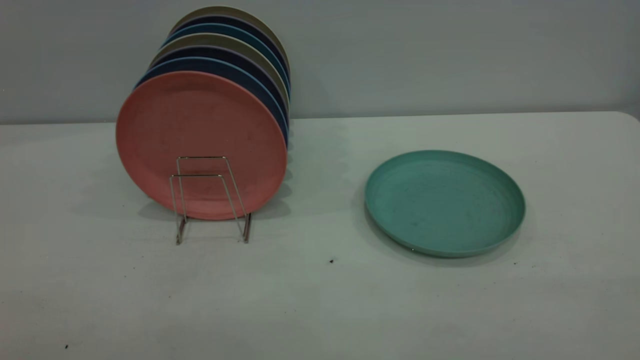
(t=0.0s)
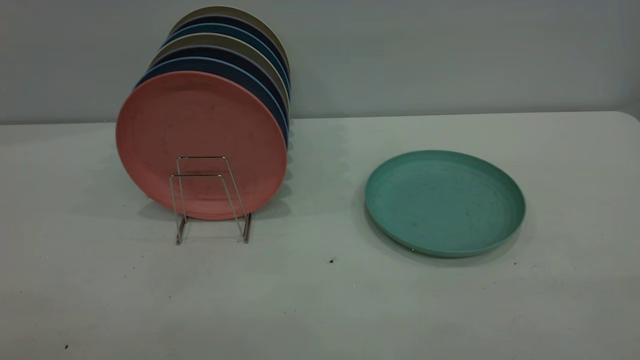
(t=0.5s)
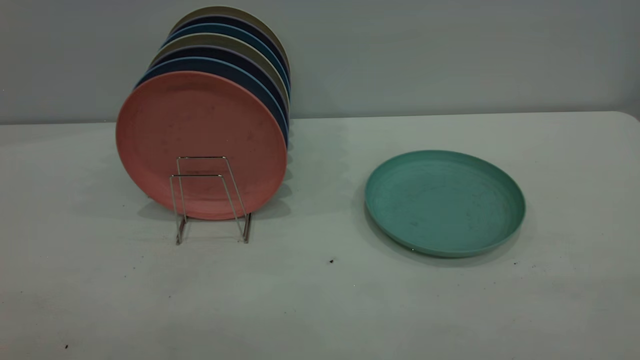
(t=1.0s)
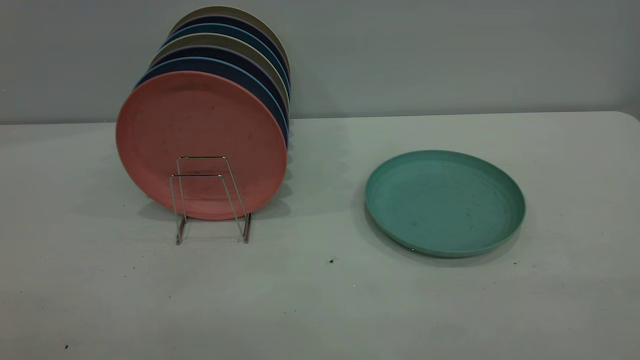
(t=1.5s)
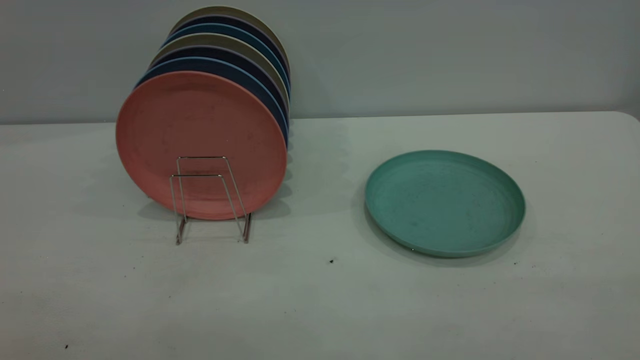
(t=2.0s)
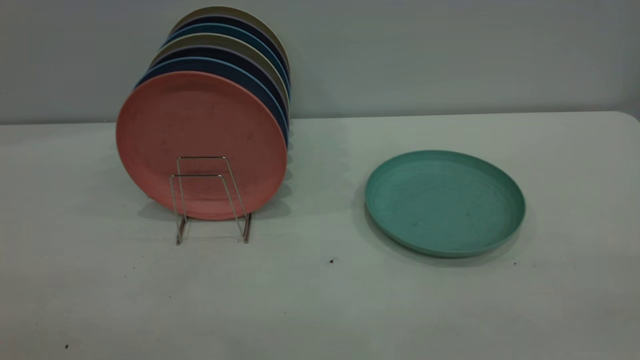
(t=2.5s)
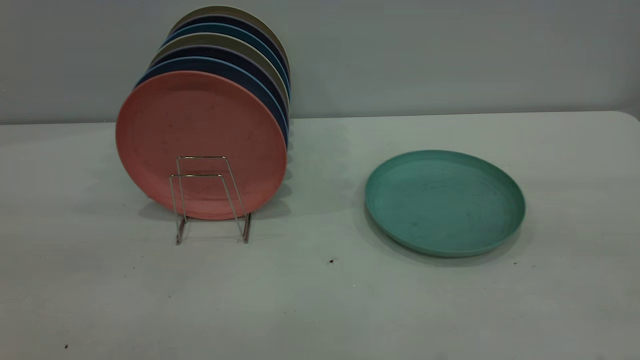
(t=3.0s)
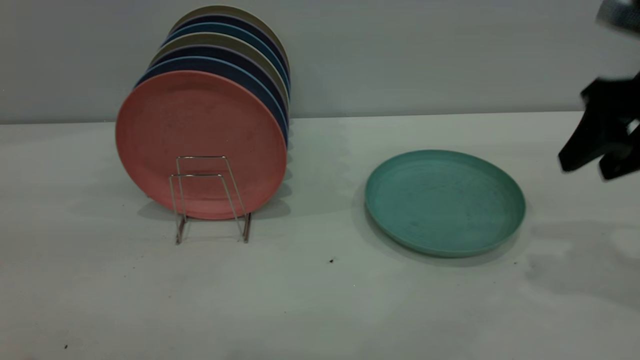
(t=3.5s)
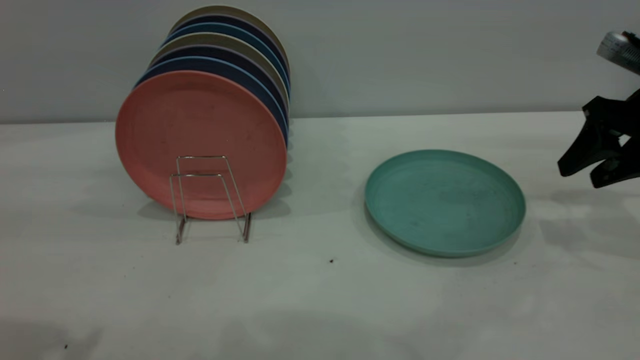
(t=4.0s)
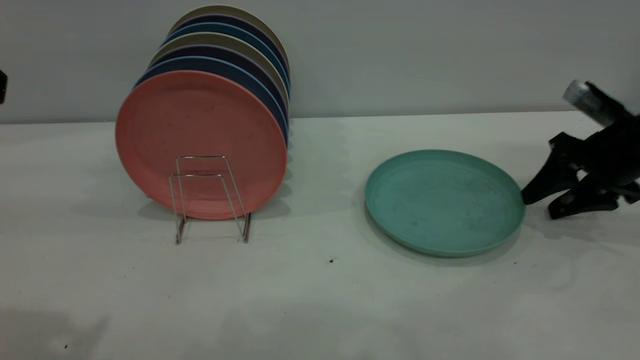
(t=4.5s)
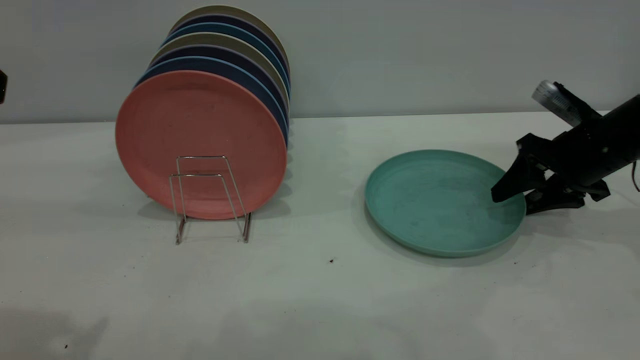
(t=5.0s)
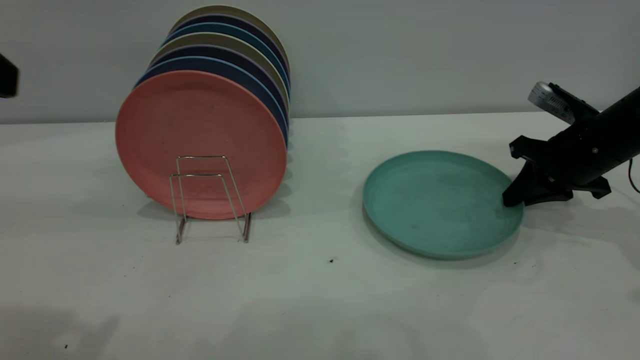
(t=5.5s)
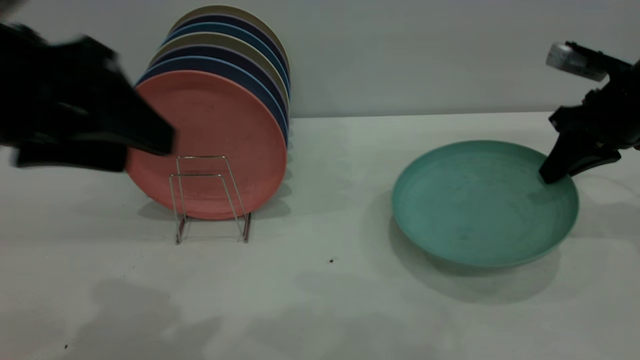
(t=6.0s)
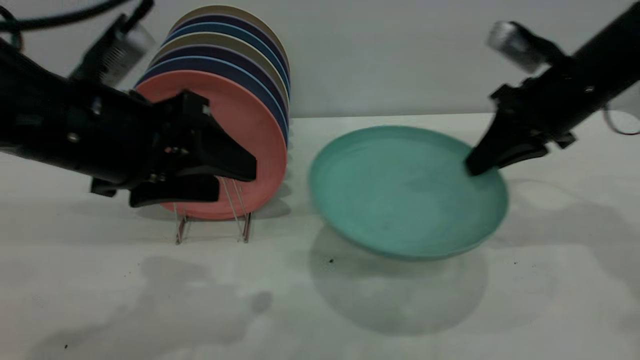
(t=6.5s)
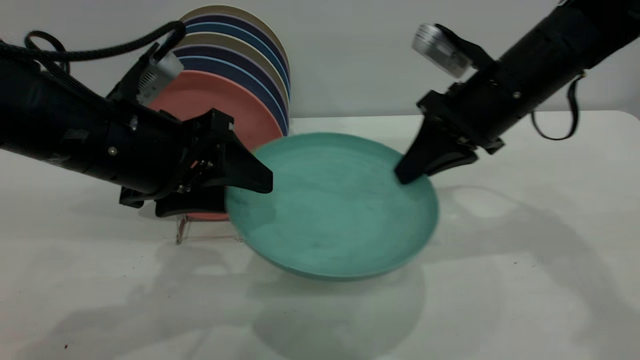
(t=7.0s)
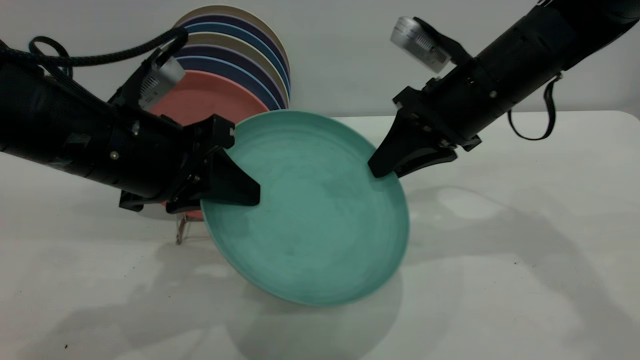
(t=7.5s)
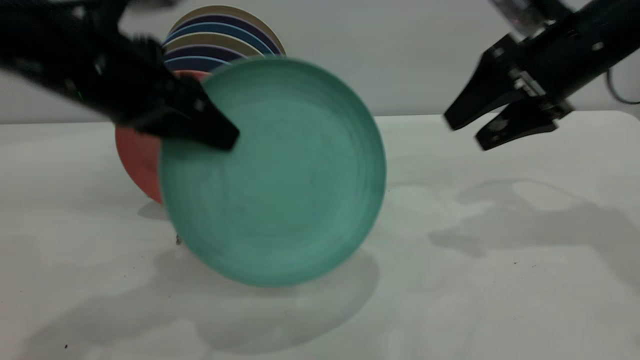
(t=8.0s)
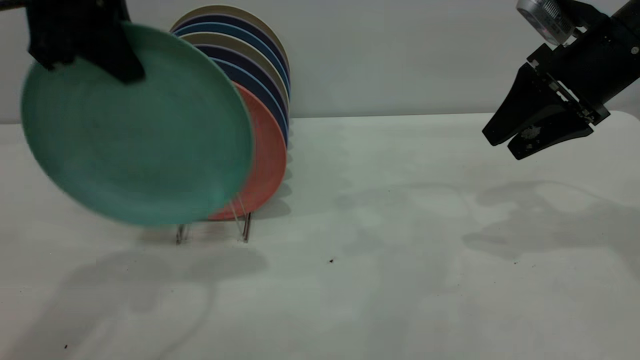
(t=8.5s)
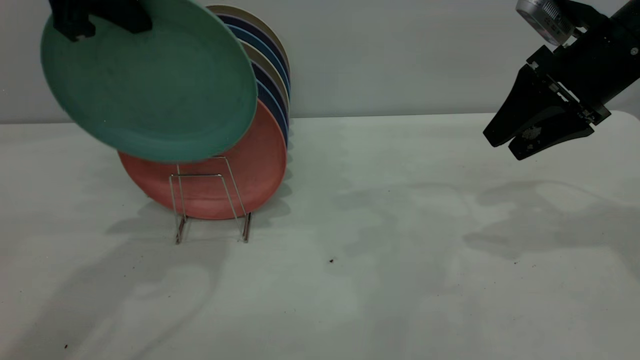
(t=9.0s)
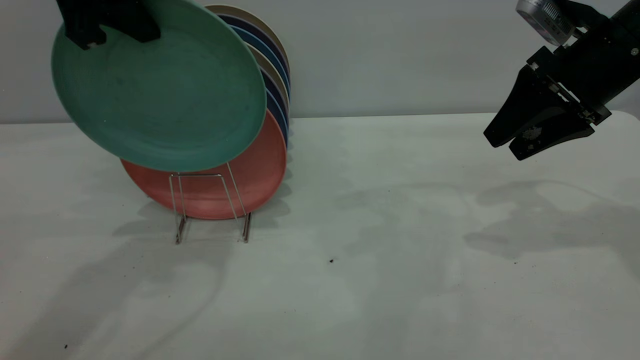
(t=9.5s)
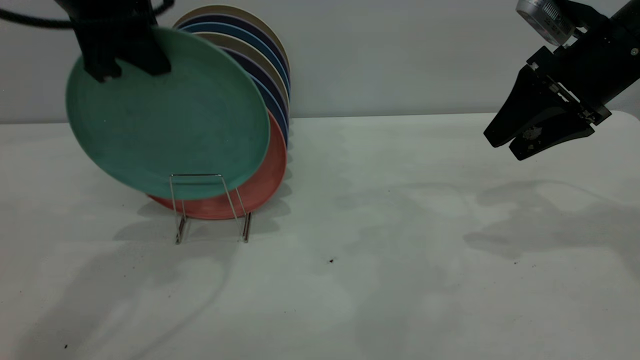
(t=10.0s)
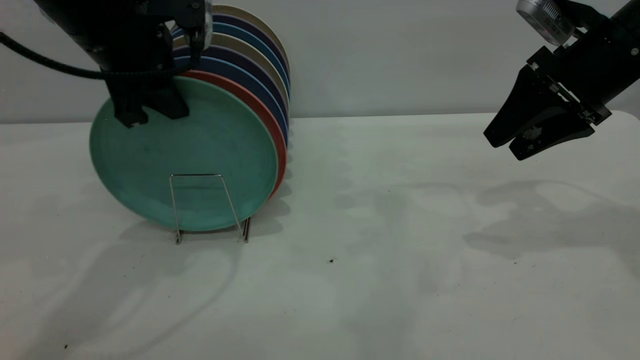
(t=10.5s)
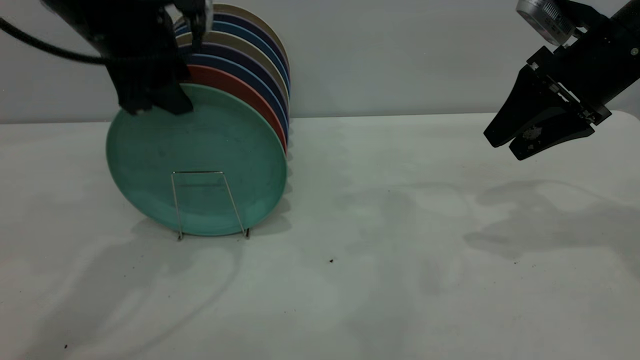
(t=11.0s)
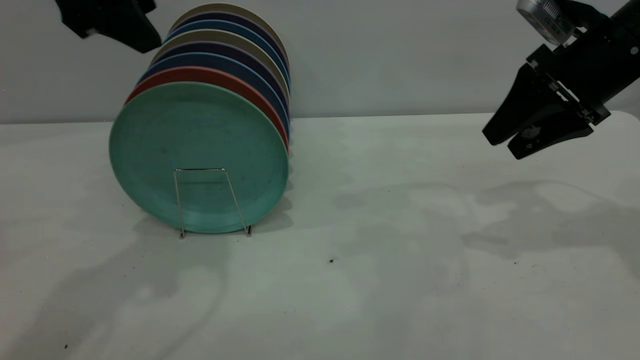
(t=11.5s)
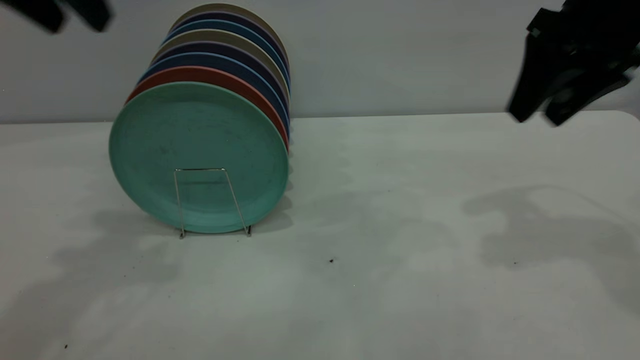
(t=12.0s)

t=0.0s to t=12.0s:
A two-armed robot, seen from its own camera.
Task of the whole recording: the right gripper grasp the green plate, the right gripper pass the green plate to the left gripper, and the left gripper place the green plate on the plate rack.
Step, t=0.0s to t=6.0s: Pick up the plate with the right gripper.
Step, t=6.5s to t=7.5s: Pass the plate from the right gripper to the left gripper.
Step, t=8.0s to t=11.0s: Place the plate on the shelf.
t=0.0s to t=2.0s: Neither gripper changes place.
t=2.0s to t=4.0s: The right gripper moves forward and downward, some 40 cm.
t=4.0s to t=6.0s: The right gripper closes; the left gripper moves downward and to the right, roughly 10 cm.
t=6.0s to t=8.0s: The right gripper moves to the left and upward, roughly 10 cm, and opens up. The left gripper goes roughly 5 cm forward, goes downward and returns, roughly 10 cm each way, and closes up.
t=8.0s to t=10.0s: The left gripper travels forward by approximately 5 cm.
t=10.0s to t=12.0s: The grippers both shift upward by some 5 cm. The left gripper opens up.

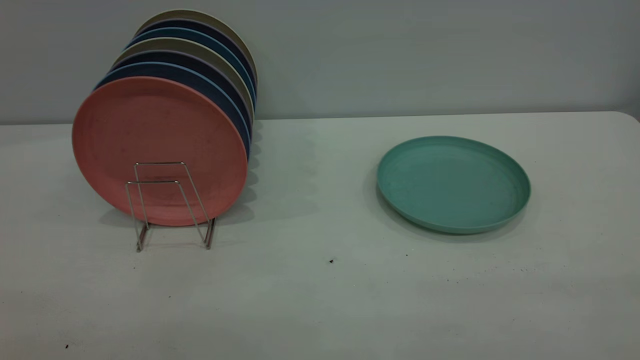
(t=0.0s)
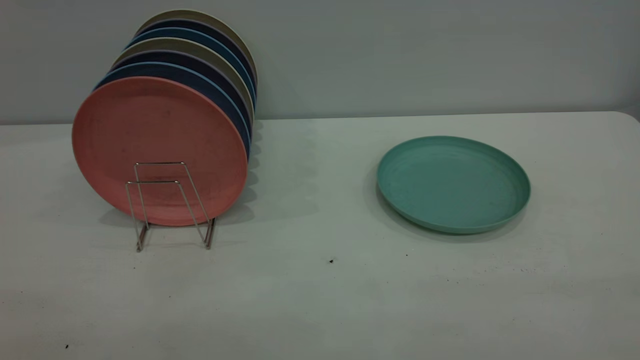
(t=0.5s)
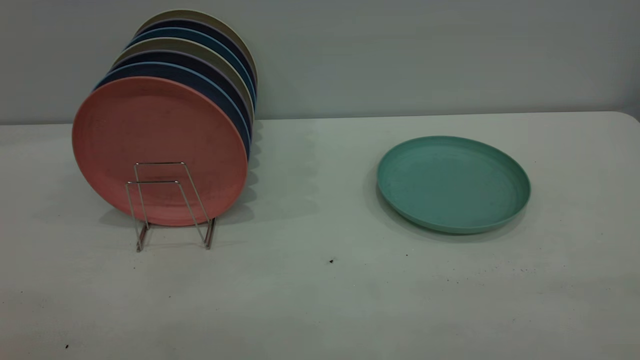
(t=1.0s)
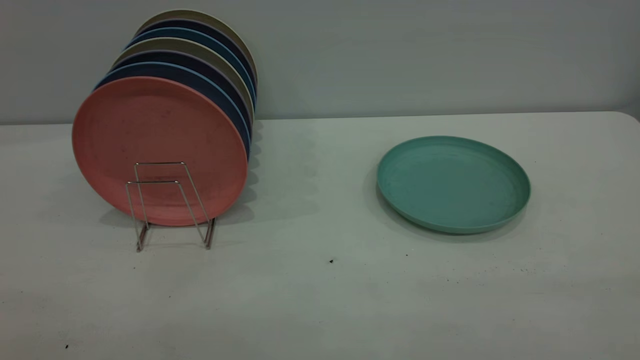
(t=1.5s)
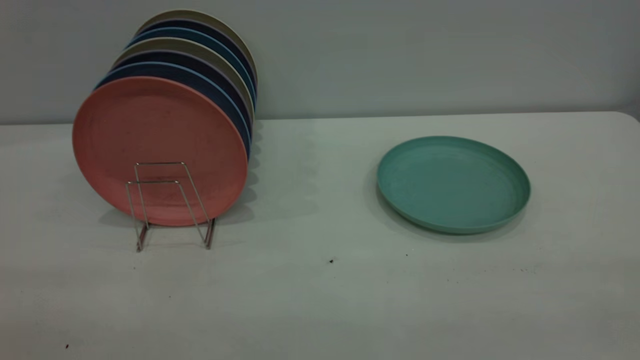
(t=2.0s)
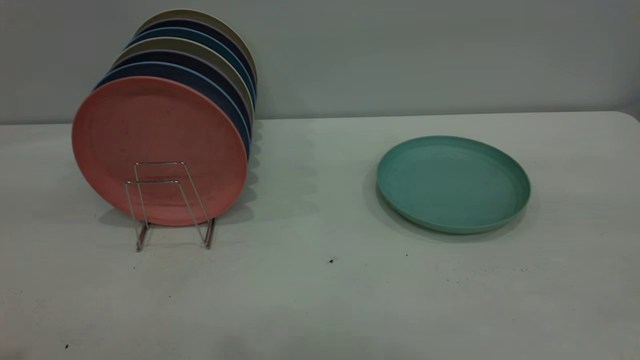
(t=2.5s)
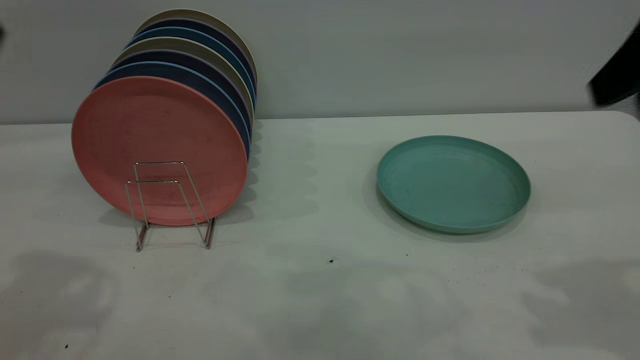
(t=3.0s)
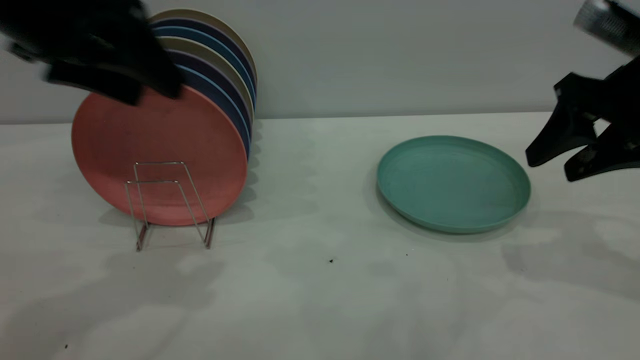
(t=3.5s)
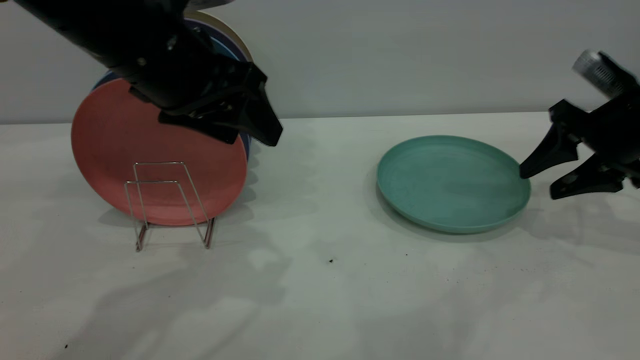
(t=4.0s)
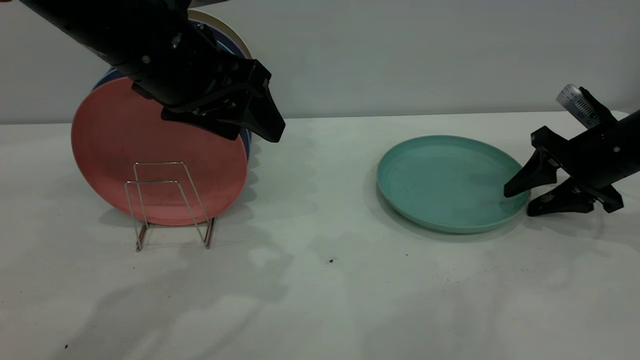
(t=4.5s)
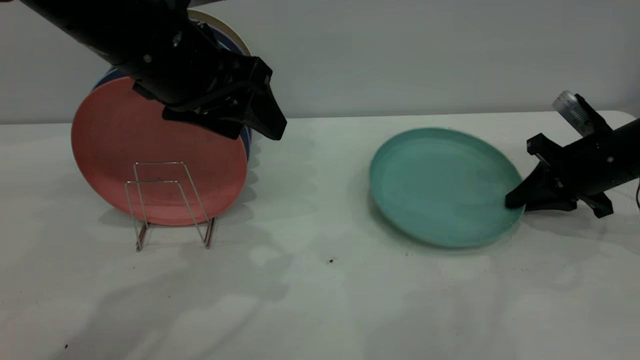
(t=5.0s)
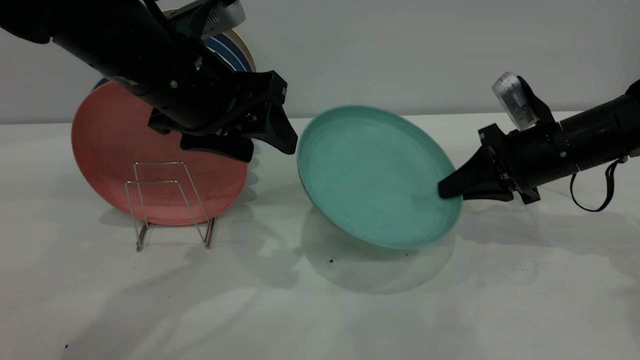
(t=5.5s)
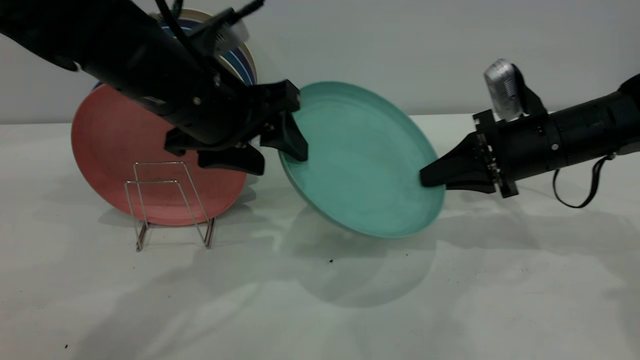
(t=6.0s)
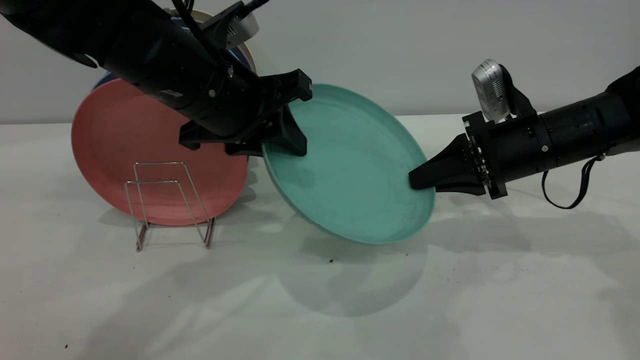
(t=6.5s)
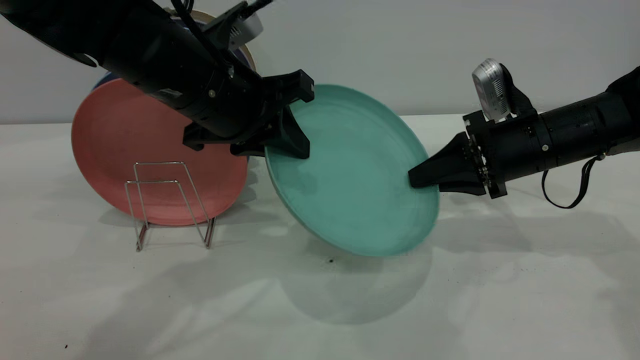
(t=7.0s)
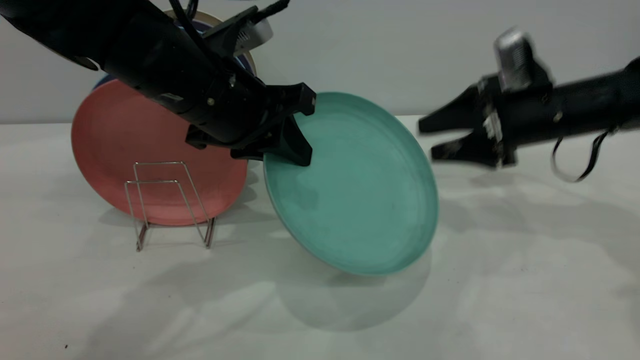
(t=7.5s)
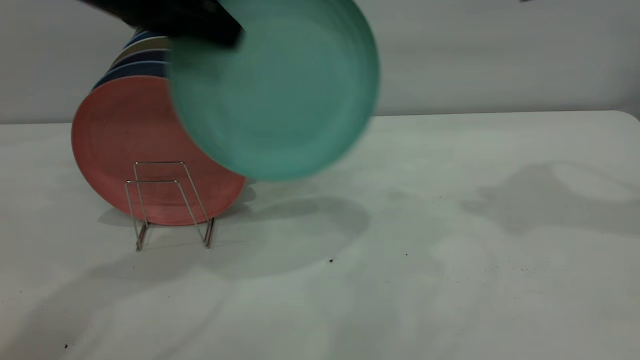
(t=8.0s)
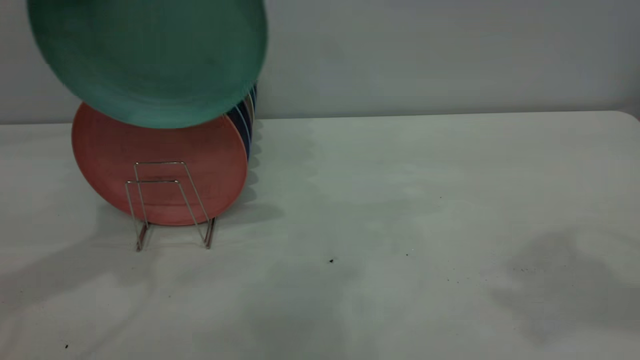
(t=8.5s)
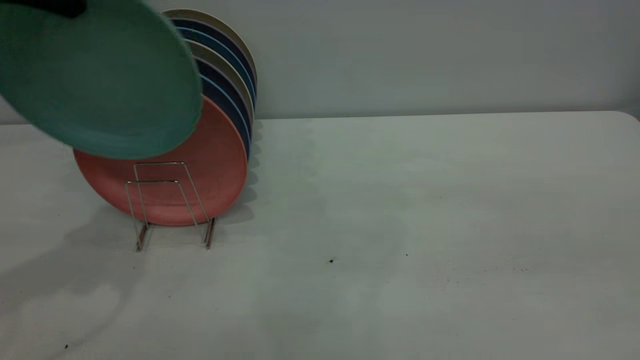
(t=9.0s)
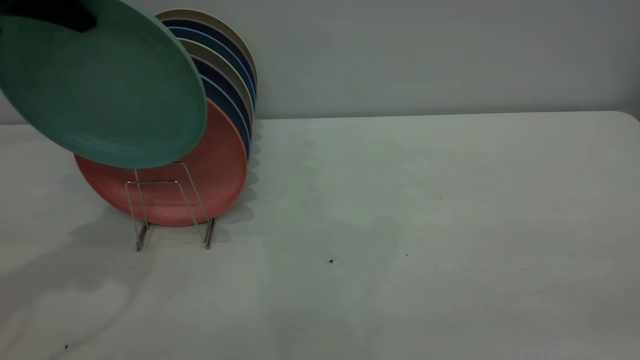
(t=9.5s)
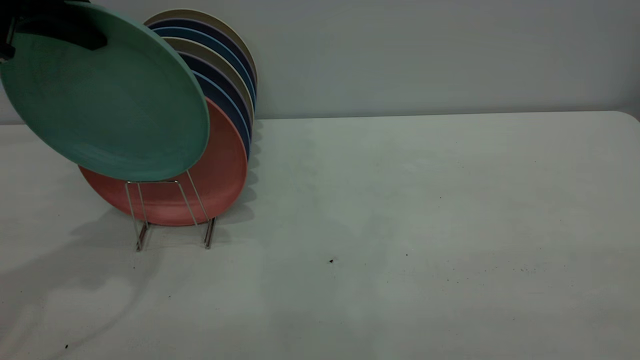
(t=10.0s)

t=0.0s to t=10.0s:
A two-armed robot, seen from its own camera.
Task of the whole recording: the right gripper grasp the green plate, the right gripper pass the green plate to the left gripper, and the left gripper place the green plate on the plate rack.
Step, t=0.0s to t=5.0s: Pick up the plate with the right gripper.
Step, t=5.5s to t=7.5s: Pass the plate from the right gripper to the left gripper.
t=2.0s to t=4.0s: The right gripper goes about 50 cm forward and downward. The left gripper travels forward and to the right by some 35 cm.
t=4.0s to t=6.0s: The left gripper shifts by about 5 cm. The right gripper heads to the left, covering roughly 10 cm, and closes its fingers.
t=6.0s to t=8.0s: The left gripper travels upward and to the left by some 10 cm, and closes its fingers. The right gripper heads upward, covering some 25 cm, and opens up.
t=8.0s to t=10.0s: The left gripper heads to the left, covering approximately 10 cm. The right gripper goes roughly 40 cm backward.
